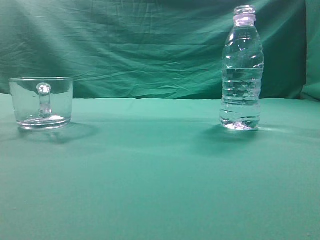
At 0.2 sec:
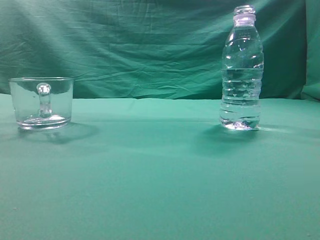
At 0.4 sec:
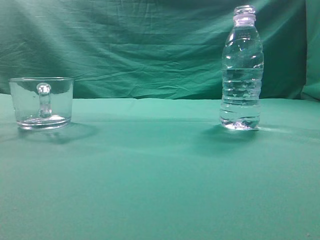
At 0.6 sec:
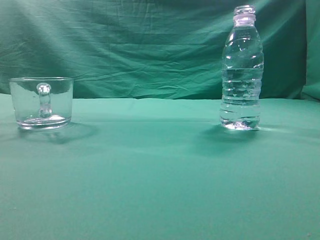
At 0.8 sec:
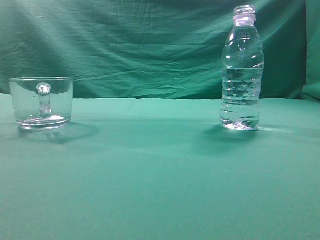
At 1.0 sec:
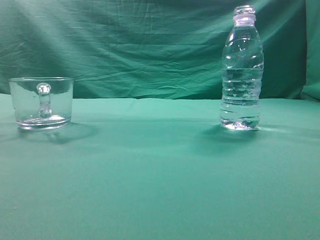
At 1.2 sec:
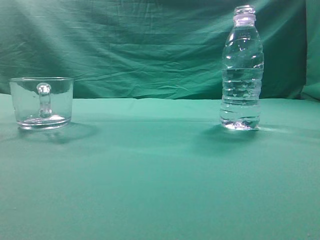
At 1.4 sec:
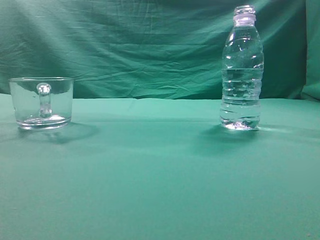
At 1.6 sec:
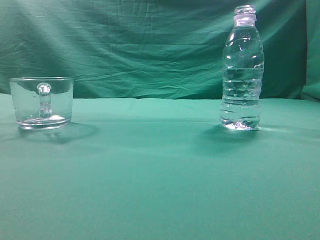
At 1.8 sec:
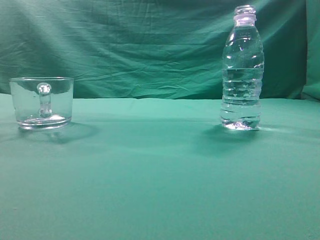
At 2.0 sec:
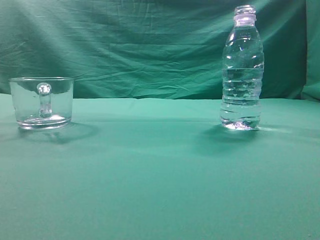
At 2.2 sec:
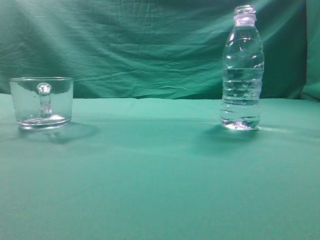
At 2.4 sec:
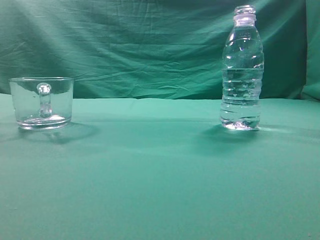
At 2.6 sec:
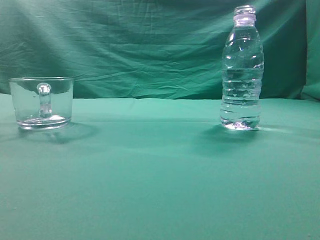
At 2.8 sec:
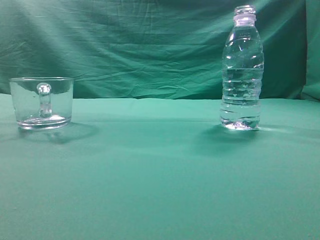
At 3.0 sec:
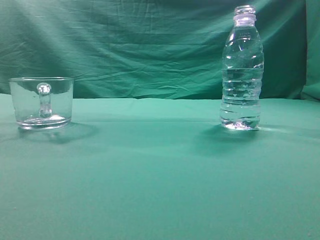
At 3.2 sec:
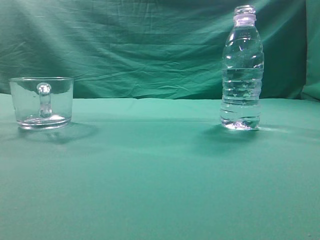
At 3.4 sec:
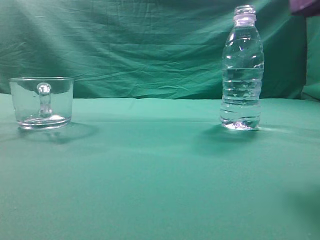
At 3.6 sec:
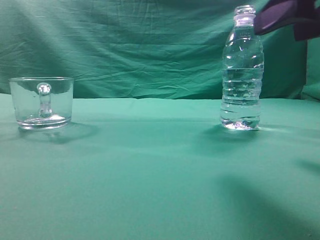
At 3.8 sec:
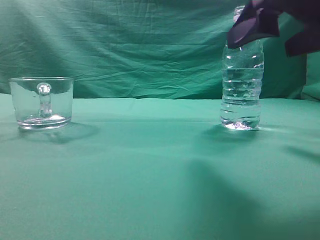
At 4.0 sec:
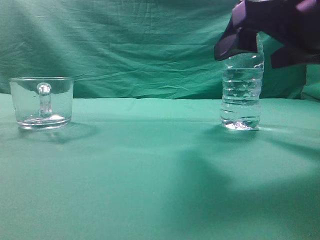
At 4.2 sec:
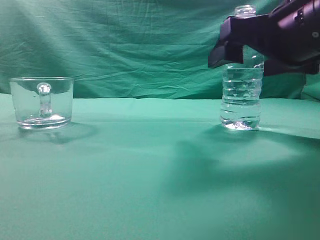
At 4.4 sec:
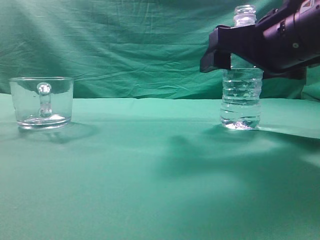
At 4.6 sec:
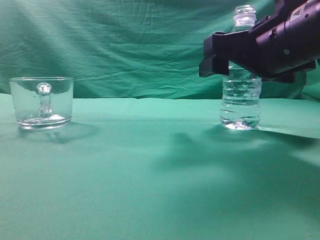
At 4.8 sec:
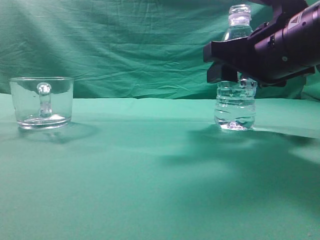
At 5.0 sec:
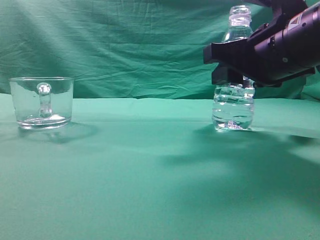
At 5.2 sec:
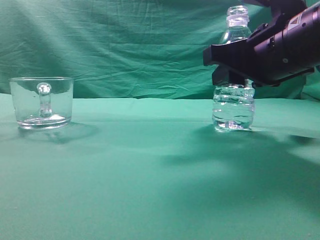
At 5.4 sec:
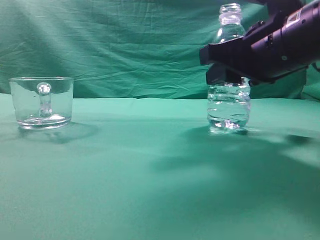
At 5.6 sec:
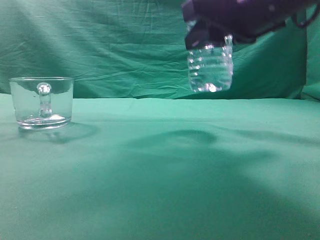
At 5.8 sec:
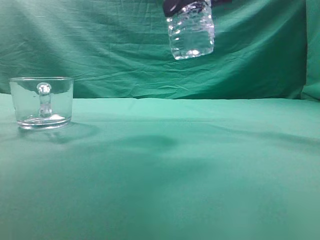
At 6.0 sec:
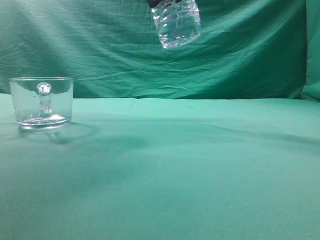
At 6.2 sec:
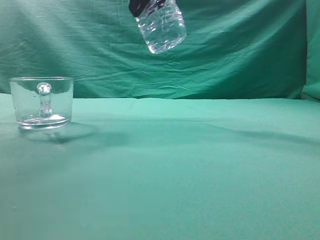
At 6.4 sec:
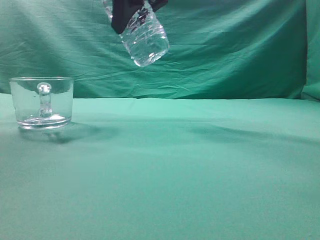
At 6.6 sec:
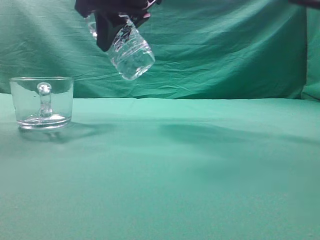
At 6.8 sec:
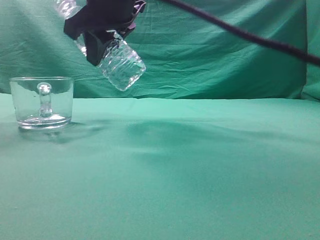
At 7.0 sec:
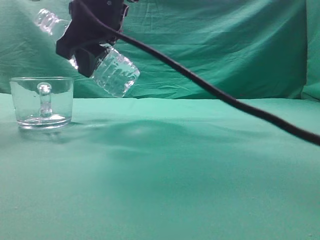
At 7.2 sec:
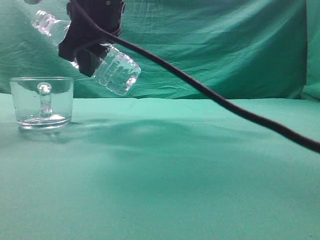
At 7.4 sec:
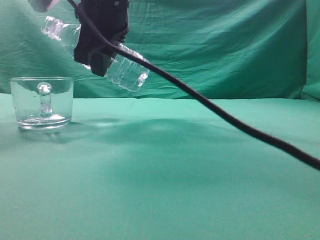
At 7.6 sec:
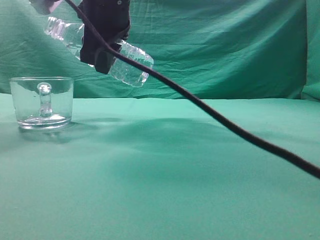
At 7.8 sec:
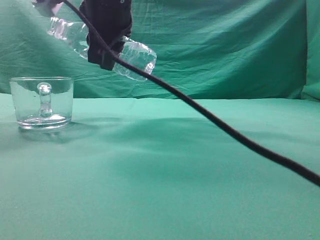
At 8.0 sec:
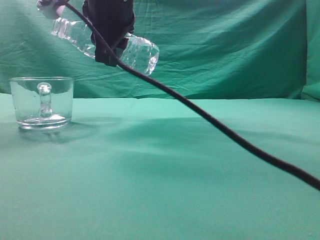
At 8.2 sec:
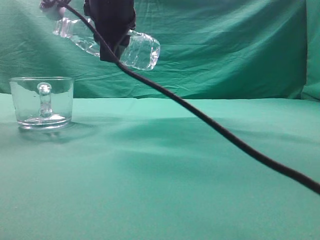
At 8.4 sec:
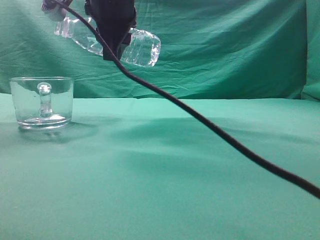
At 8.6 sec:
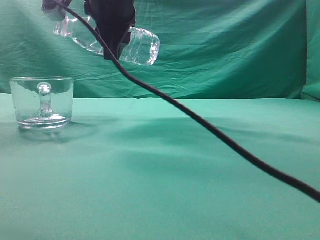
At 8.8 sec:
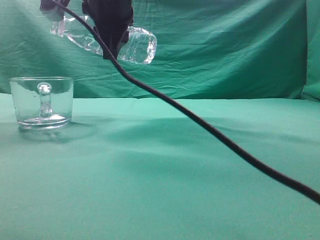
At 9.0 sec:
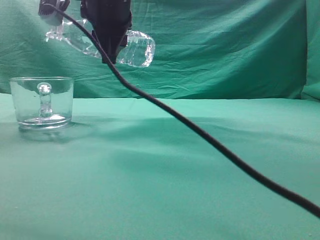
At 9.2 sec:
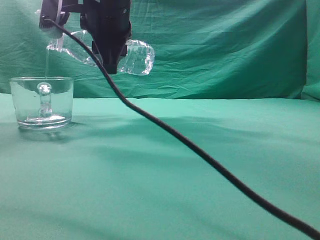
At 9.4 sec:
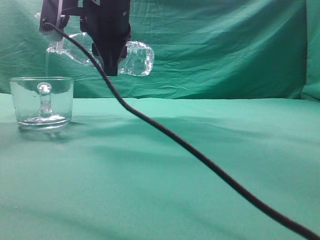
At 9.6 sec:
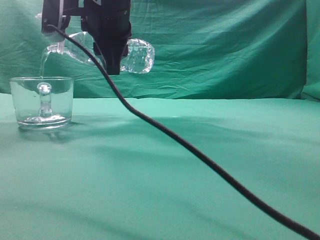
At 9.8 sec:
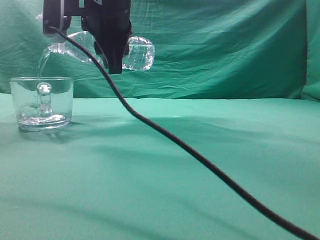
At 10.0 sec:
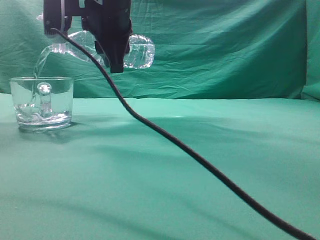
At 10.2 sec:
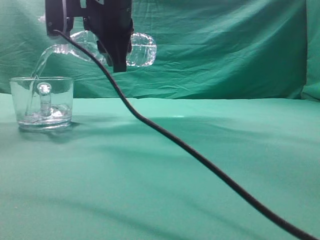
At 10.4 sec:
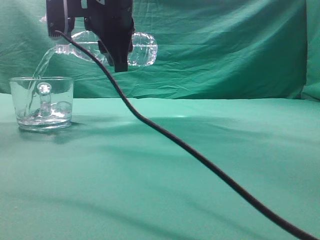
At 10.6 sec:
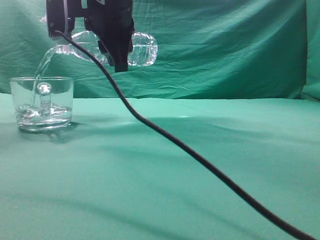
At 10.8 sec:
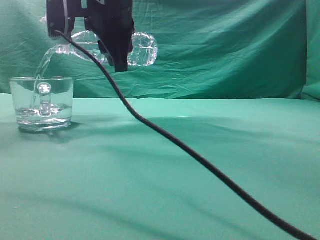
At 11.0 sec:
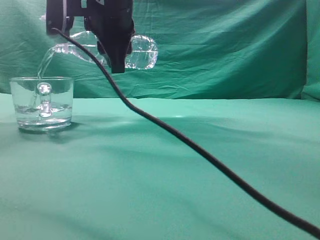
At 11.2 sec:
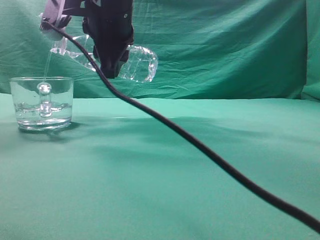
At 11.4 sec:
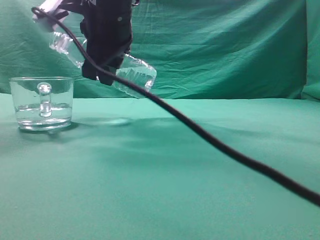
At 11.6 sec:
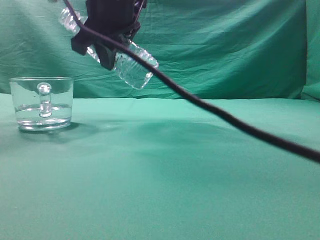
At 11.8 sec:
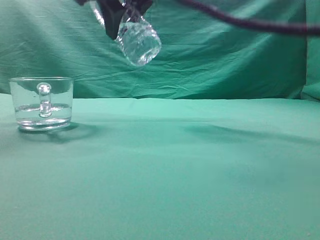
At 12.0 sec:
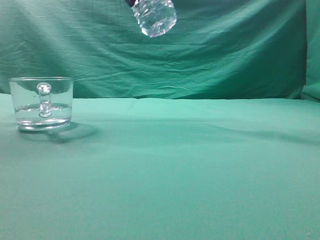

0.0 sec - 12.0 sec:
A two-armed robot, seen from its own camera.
Task of the whole recording: pick up the water bottle and pour the water in it into the glass.
Step, 0.0 sec - 5.4 sec: Grasp the mineral water bottle.
Step, 5.6 sec - 11.4 sec: Pour water into the teacup.
3.0 sec - 4.4 sec: The right gripper travels forward, to the left and downward by roughly 20 cm, and opens its fingers.
4.4 sec - 6.0 sec: The right gripper goes roughly 15 cm upward and to the left, and closes its fingers.
6.0 sec - 7.6 sec: The right gripper is displaced to the left and downward by roughly 15 cm.
7.6 sec - 9.0 sec: The grippers stay close to where they were, moving slightly.
9.0 sec - 10.4 sec: There are only small adjustments of the grippers.
10.4 sec - 12.0 sec: The right gripper shifts approximately 15 cm upward and to the right.

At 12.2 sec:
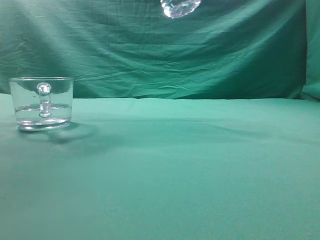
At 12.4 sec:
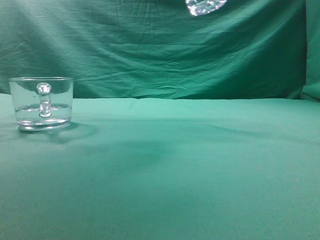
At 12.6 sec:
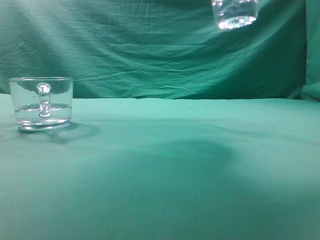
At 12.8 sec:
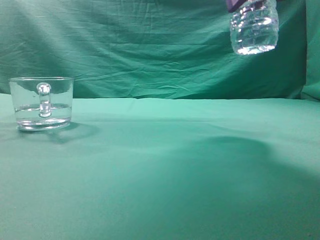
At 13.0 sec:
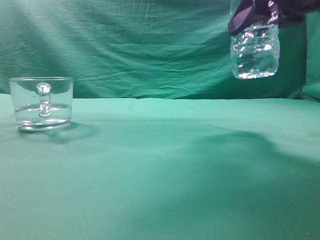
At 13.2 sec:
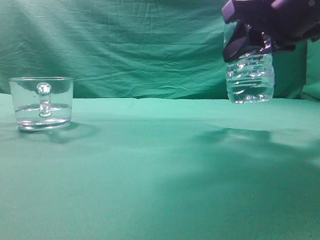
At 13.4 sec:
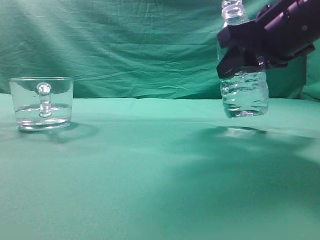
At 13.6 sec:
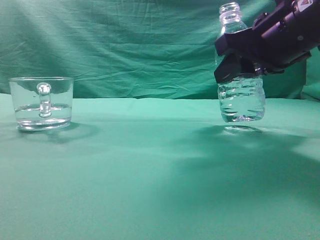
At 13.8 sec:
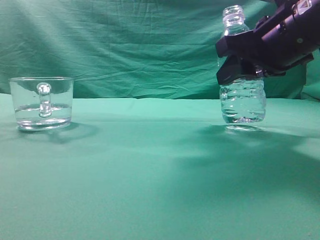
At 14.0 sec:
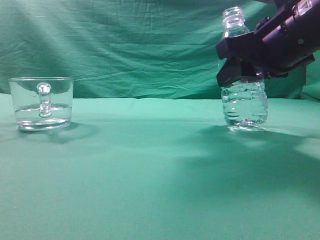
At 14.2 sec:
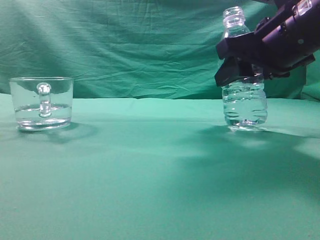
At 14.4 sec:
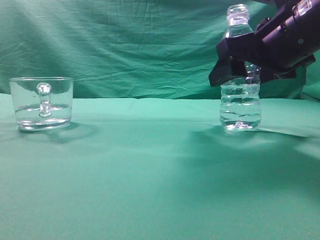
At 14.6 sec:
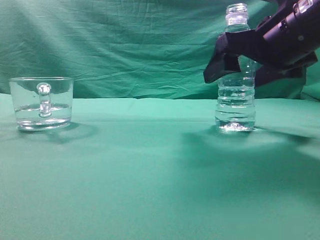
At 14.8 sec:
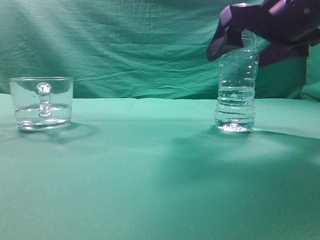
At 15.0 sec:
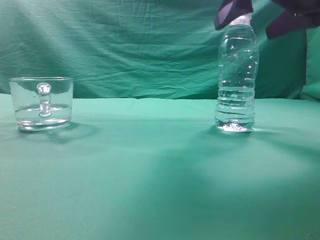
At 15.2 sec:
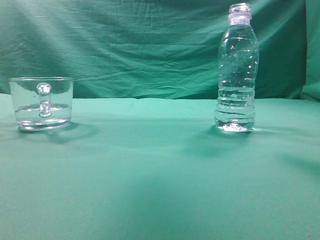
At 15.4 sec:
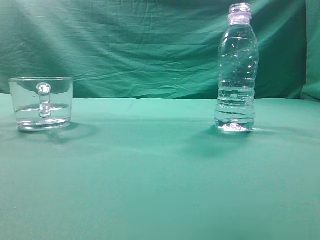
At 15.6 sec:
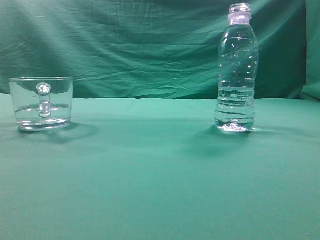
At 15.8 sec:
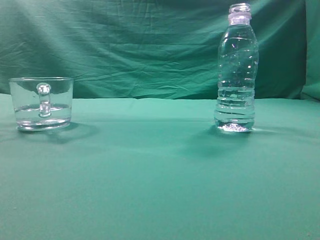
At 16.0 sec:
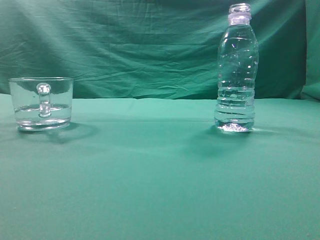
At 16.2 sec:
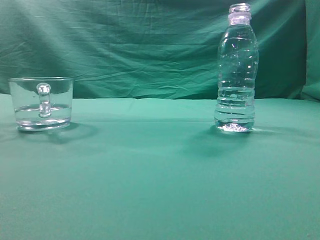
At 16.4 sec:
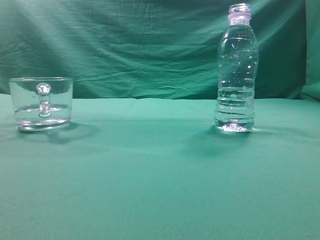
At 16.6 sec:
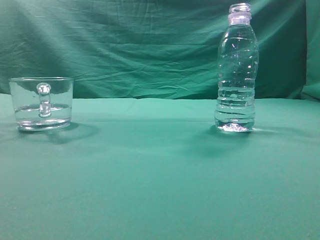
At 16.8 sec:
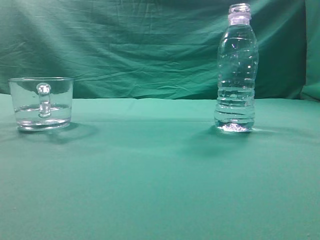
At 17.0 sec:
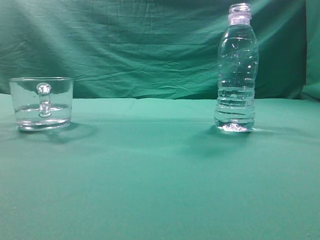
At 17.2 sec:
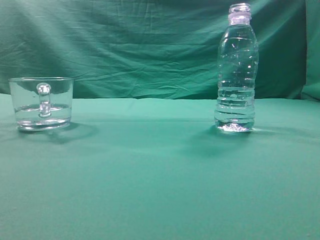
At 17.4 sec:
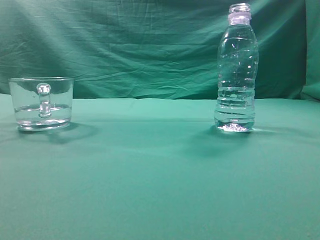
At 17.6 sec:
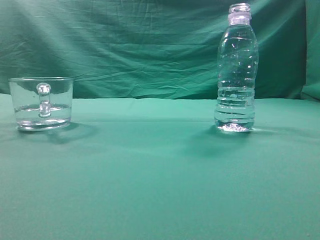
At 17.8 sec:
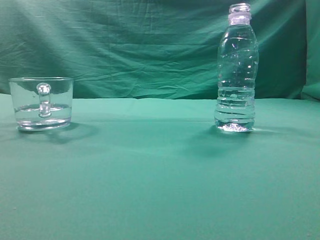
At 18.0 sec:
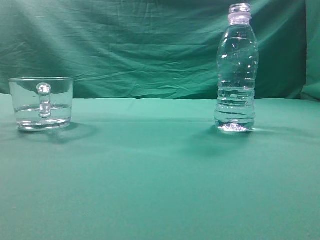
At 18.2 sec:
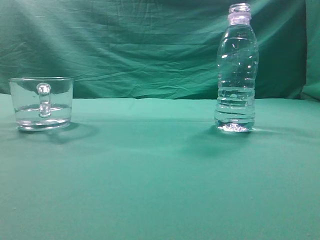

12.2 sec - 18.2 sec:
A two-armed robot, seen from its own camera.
Task of the whole recording: pick up the water bottle and pour the water in it into the glass.
12.2 sec - 13.8 sec: The right gripper goes roughly 20 cm downward and to the right.
13.8 sec - 15.2 sec: The right gripper goes about 10 cm upward, and opens up.
